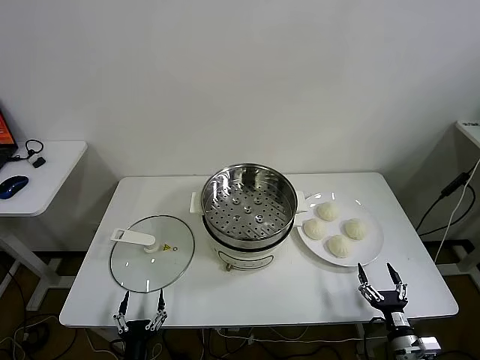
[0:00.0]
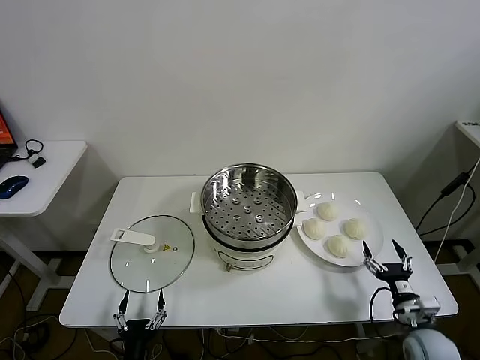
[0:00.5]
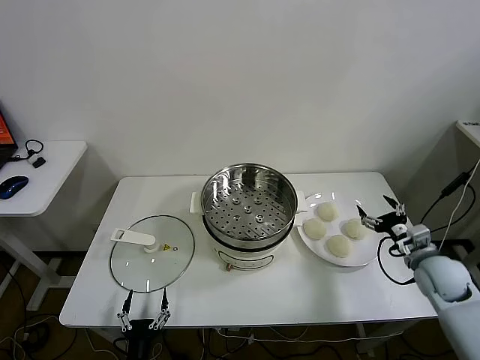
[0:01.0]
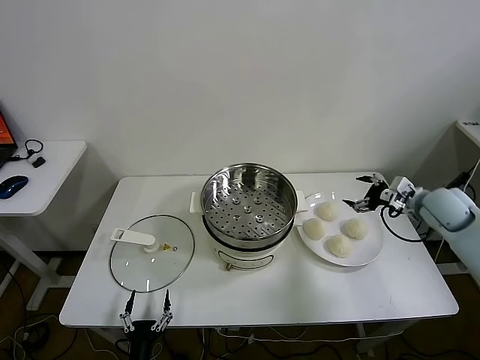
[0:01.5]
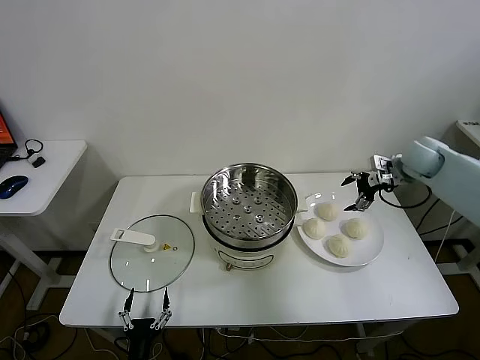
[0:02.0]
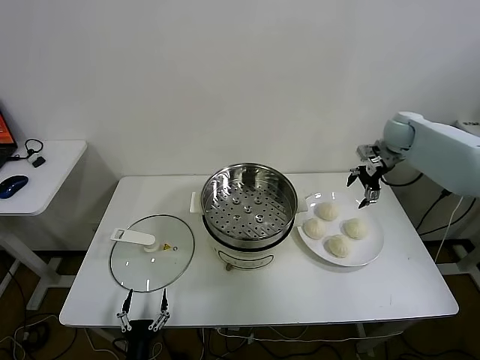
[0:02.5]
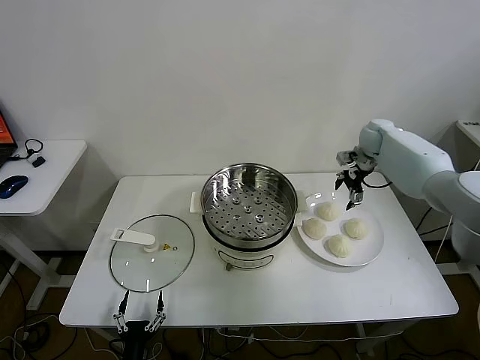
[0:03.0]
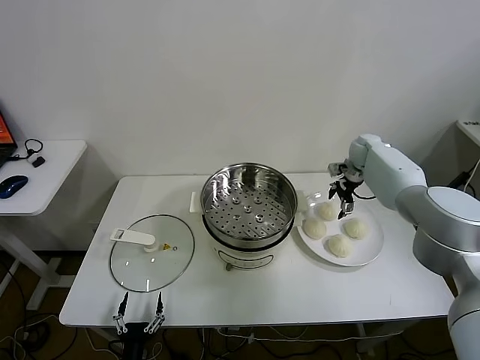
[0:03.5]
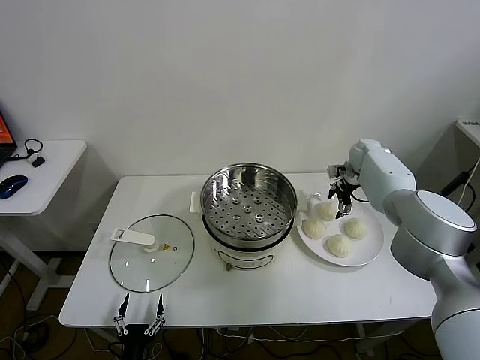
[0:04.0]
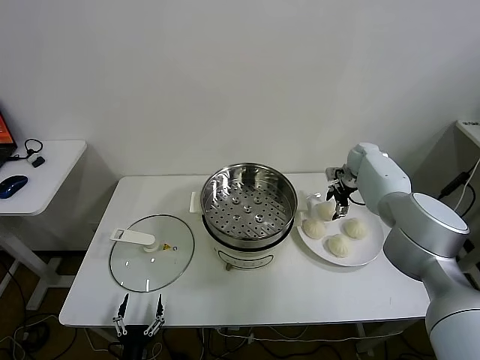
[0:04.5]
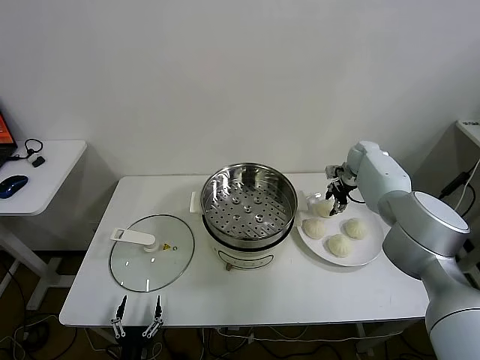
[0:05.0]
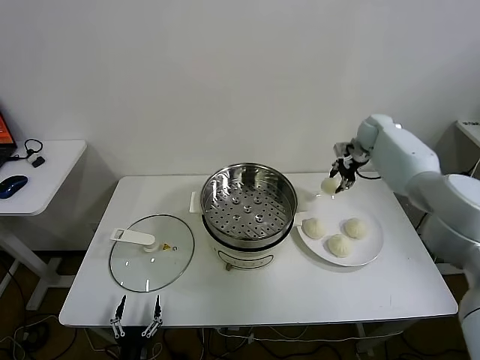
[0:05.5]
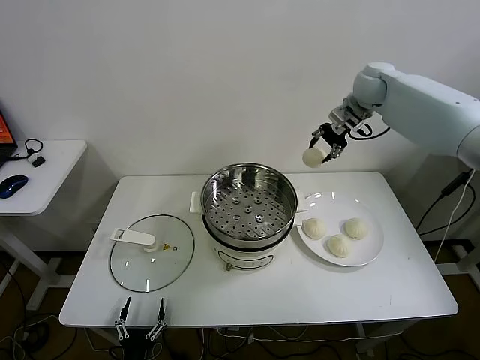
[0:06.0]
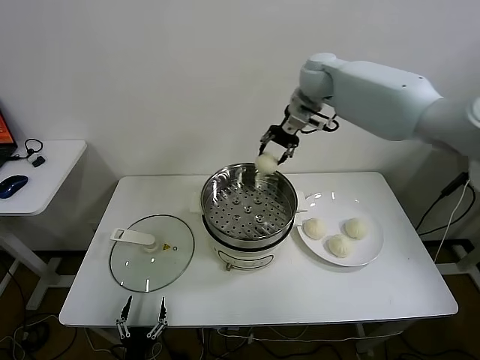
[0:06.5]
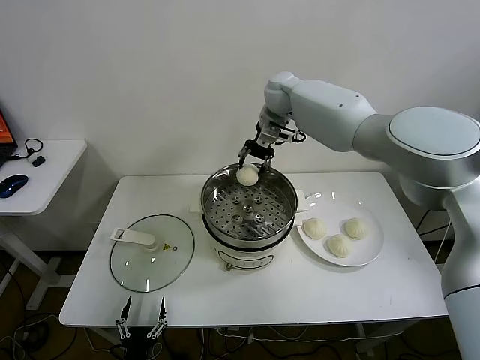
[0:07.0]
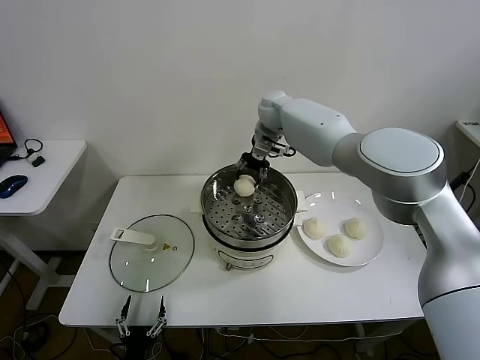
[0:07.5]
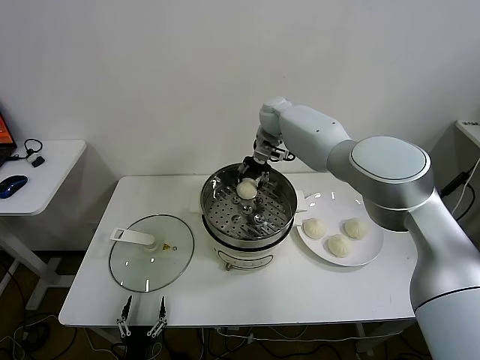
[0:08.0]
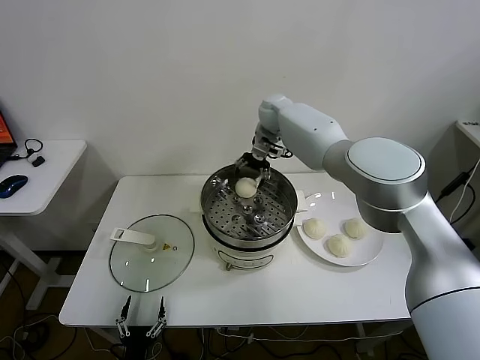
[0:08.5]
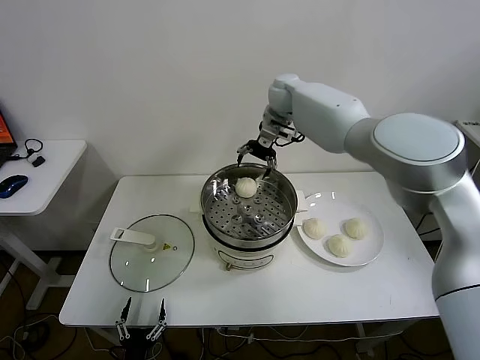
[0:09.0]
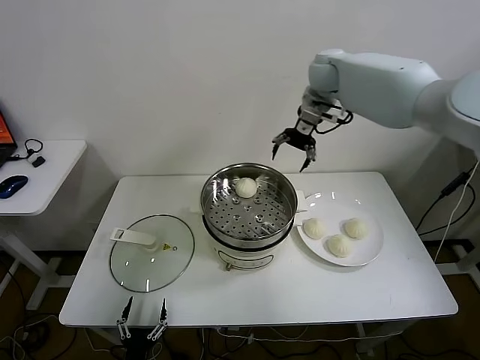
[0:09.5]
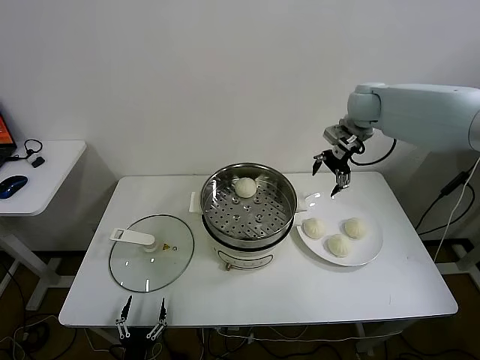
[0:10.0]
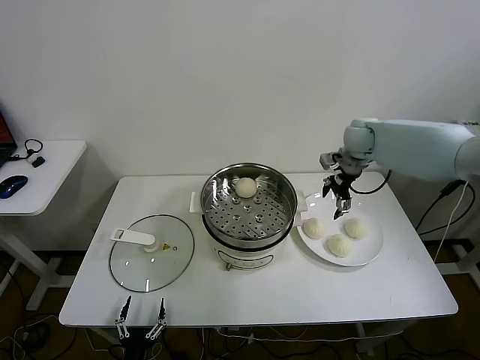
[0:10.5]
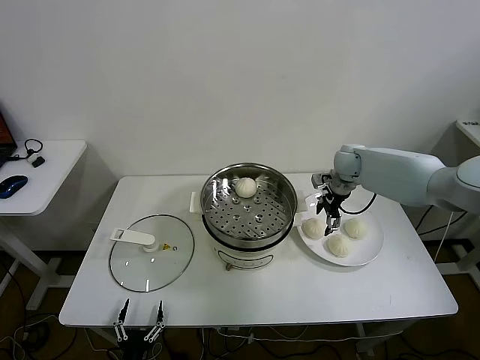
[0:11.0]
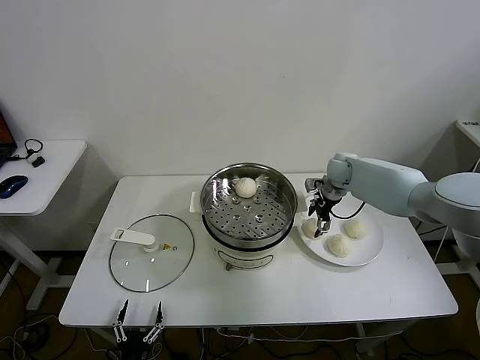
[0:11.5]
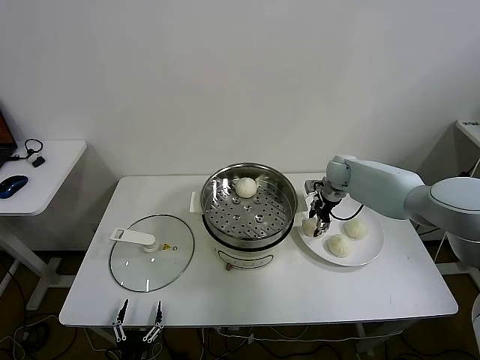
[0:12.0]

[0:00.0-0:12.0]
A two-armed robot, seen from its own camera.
Task of the whole recording: take steamed baozi put them in steamer.
Step, 0:00.0 to 0:04.5: Grasp the baozi in the plate with right gripper.
Step, 0:05.5 to 0:08.5: Place the baozi on the steamer with right gripper.
Step, 0:09.0 to 0:12.0: Grasp the baozi in the plate with right gripper.
0:02.0 to 0:04.0: The right gripper heads downward, forward and to the left, covering about 15 cm.
0:04.0 to 0:06.0: The right gripper is displaced upward by roughly 25 cm, and closes up.
0:06.0 to 0:08.0: The right gripper goes some 20 cm to the left and downward.
0:08.0 to 0:10.0: The right gripper heads to the right, covering about 20 cm, and opens its fingers.
0:10.0 to 0:12.0: The right gripper heads downward, covering some 20 cm, and closes.

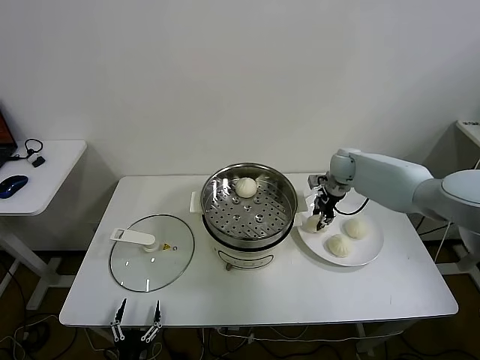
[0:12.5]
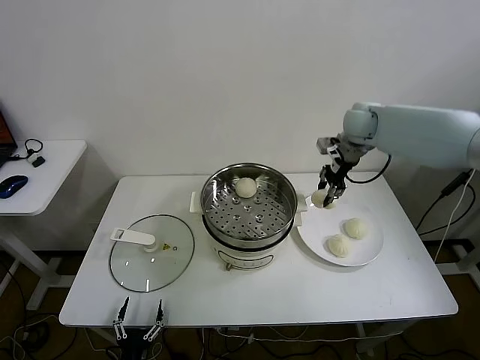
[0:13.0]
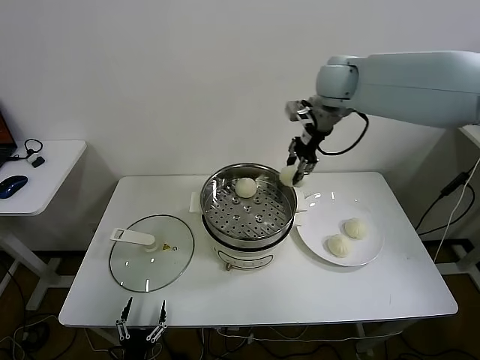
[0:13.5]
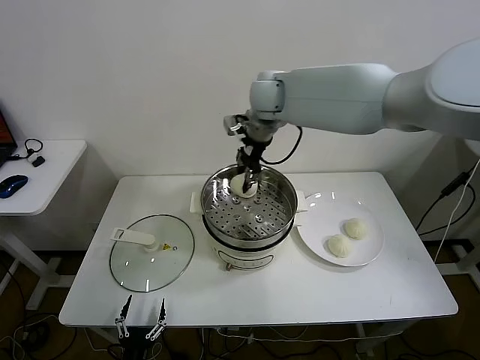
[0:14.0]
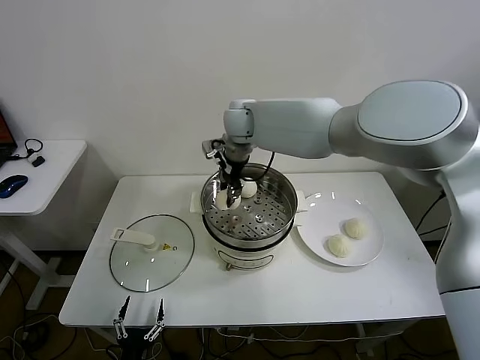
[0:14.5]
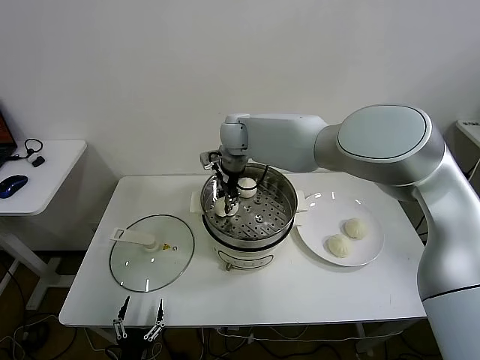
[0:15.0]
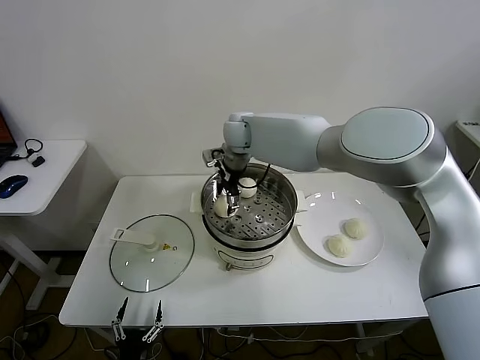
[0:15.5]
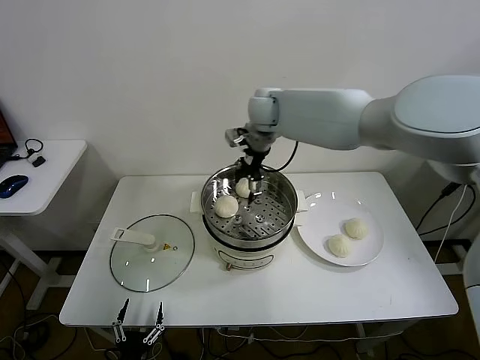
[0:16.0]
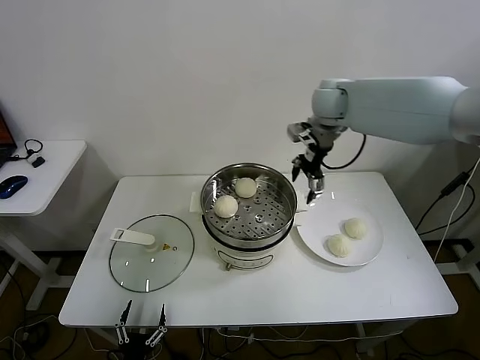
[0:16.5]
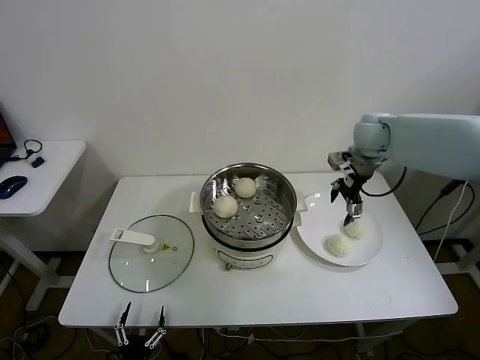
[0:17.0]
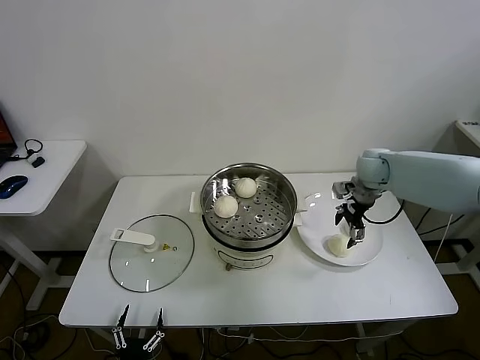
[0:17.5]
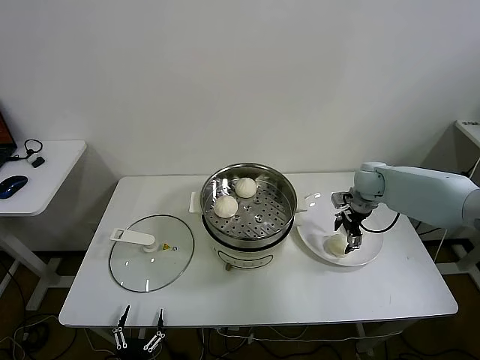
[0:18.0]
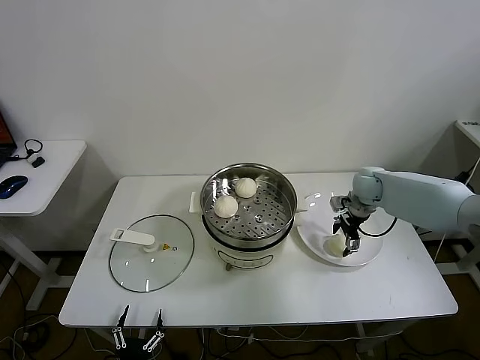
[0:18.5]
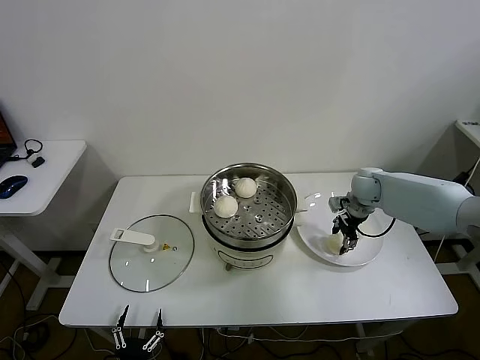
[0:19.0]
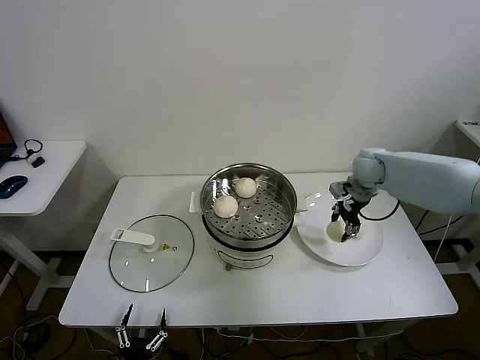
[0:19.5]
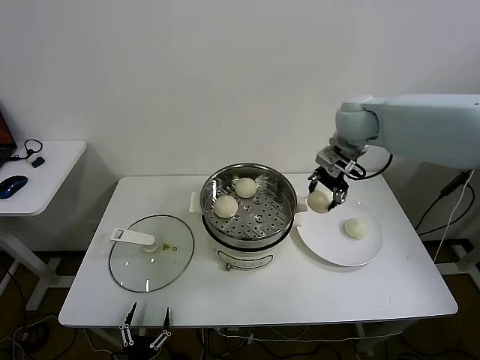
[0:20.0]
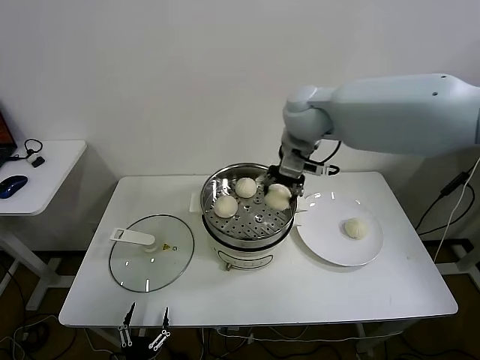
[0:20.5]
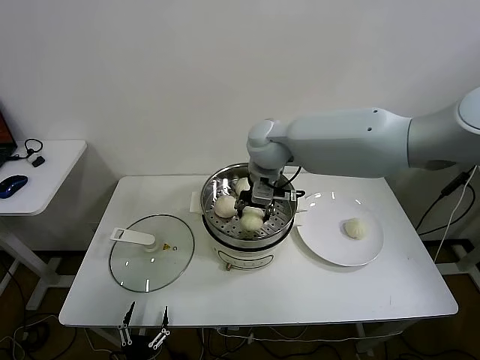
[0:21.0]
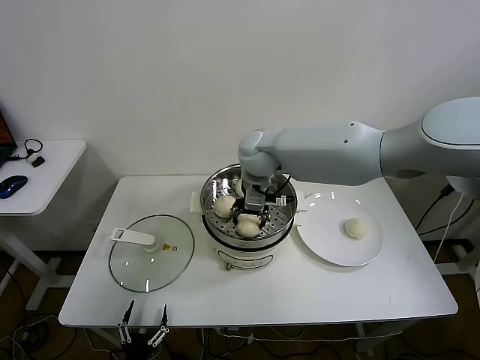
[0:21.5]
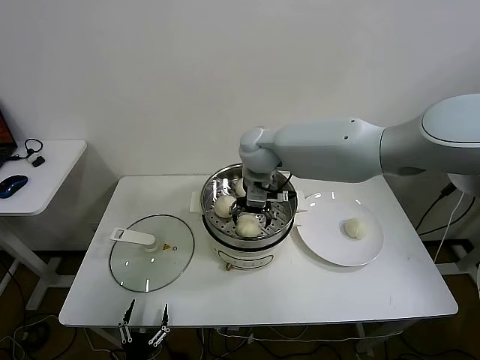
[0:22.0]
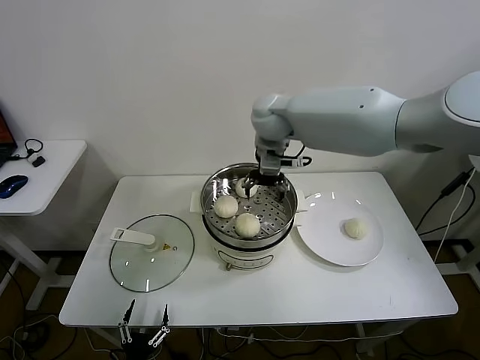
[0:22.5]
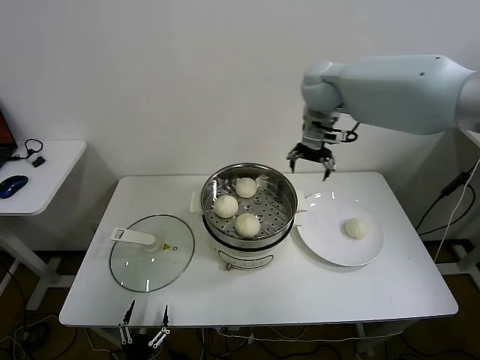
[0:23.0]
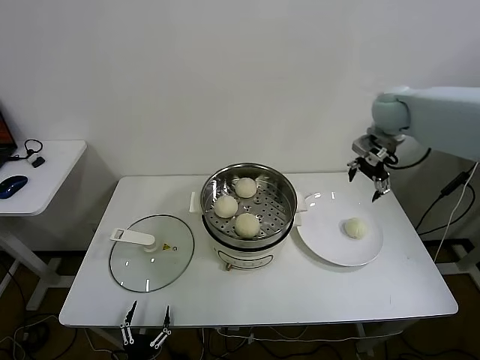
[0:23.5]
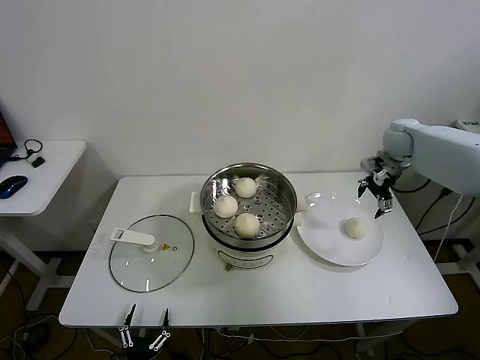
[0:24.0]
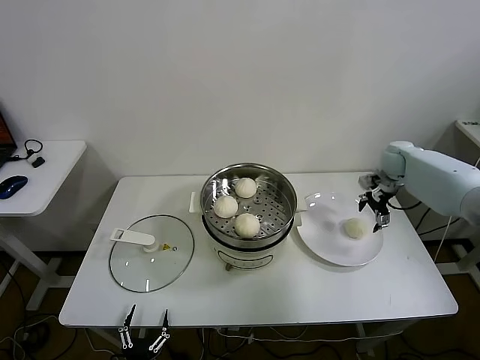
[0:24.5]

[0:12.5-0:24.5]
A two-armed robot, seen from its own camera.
Task of the whole recording: take steamed baozi put them in steamer.
Step, 0:12.5 to 0:15.5: Place the baozi on the steamer with right gripper.
Step, 0:16.0 to 0:18.5: Grasp the baozi in the plate with right gripper.
Step, 0:19.0 to 0:21.5: Place the baozi on the steamer with right gripper.
0:12.5 to 0:14.5: The right gripper goes approximately 35 cm to the left and upward.
0:14.5 to 0:16.5: The right gripper shifts approximately 20 cm to the right, and opens.
0:16.5 to 0:18.5: The right gripper travels downward and to the right by roughly 25 cm.
0:18.5 to 0:20.5: The right gripper moves upward and to the left, approximately 35 cm, and closes.
0:20.5 to 0:22.5: The right gripper heads to the left, covering approximately 5 cm, goes downward and returns, approximately 10 cm each way, and opens its fingers.
0:22.5 to 0:24.5: The right gripper travels to the right and downward by some 40 cm.

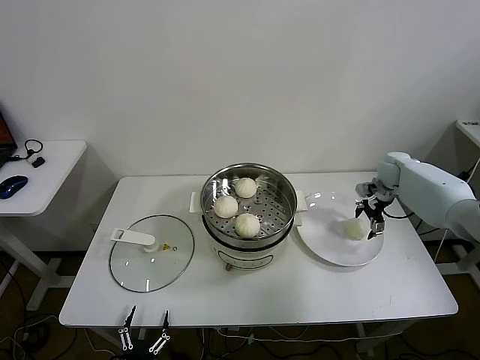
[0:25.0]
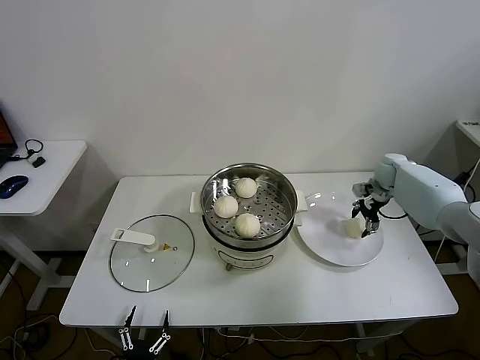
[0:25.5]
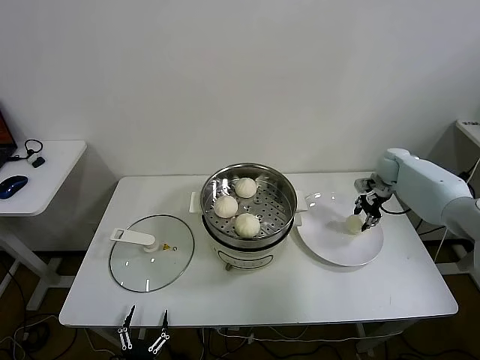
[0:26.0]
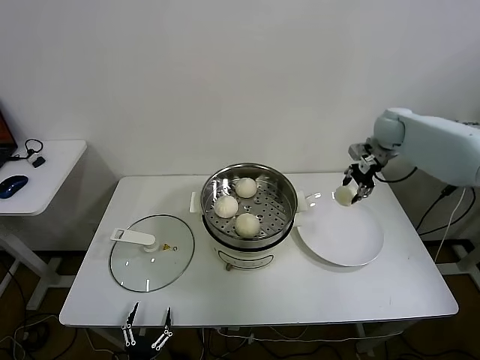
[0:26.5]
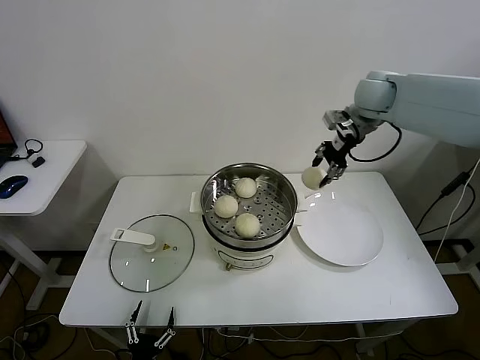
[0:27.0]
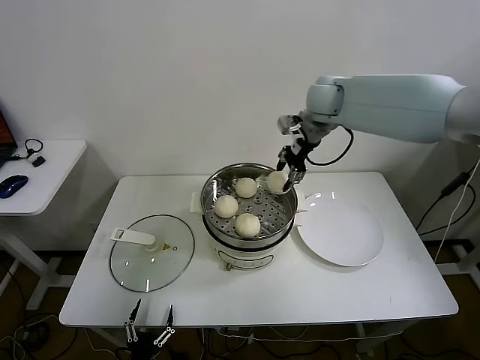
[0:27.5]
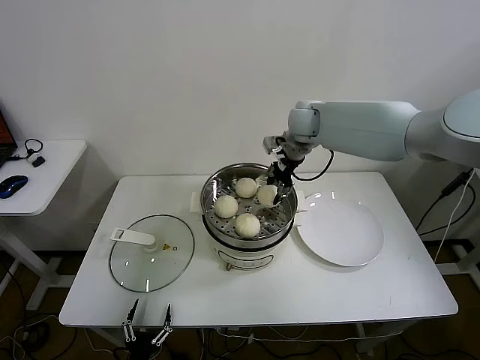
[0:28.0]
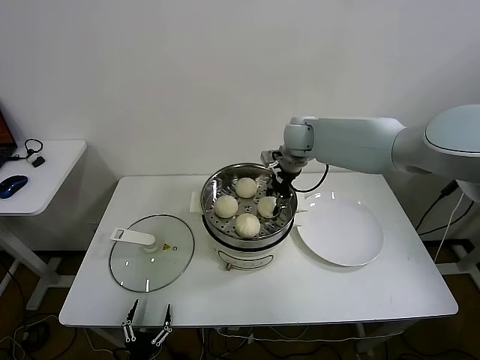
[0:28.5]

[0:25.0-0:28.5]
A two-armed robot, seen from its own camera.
Task of the whole recording: take steamed baozi put them in steamer.
0:25.0 to 0:27.0: The right gripper travels upward and to the left by some 25 cm, and closes up.
0:27.0 to 0:28.5: The right gripper moves to the left and downward, about 20 cm.
